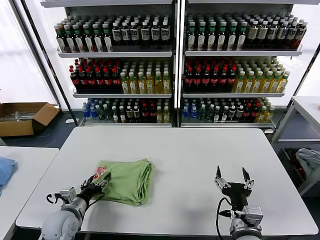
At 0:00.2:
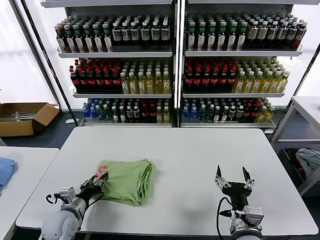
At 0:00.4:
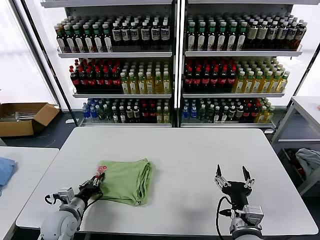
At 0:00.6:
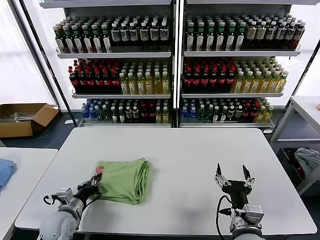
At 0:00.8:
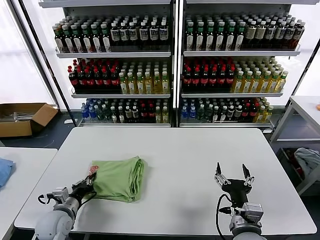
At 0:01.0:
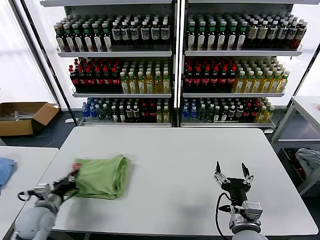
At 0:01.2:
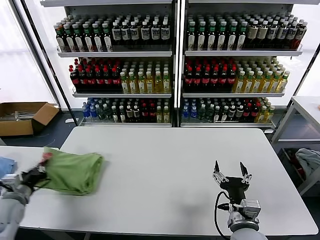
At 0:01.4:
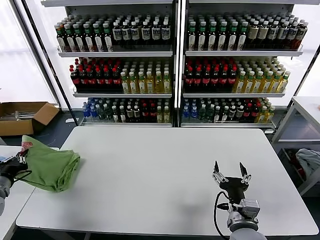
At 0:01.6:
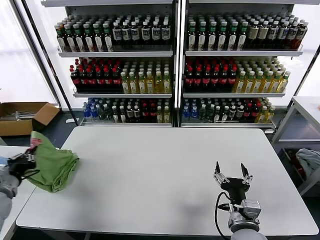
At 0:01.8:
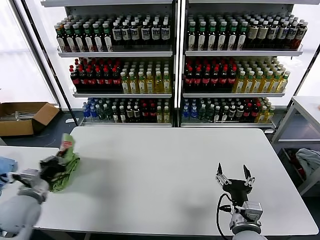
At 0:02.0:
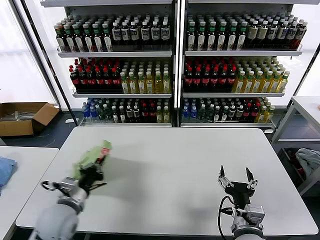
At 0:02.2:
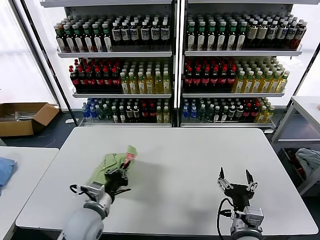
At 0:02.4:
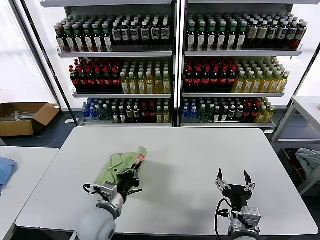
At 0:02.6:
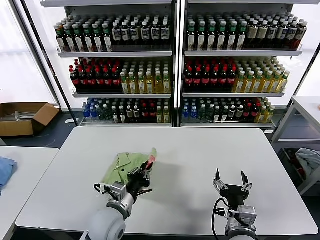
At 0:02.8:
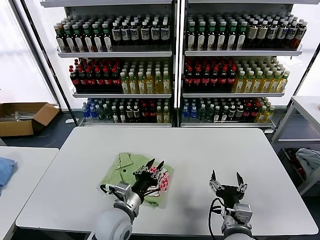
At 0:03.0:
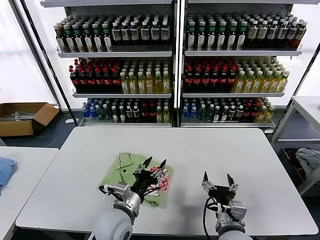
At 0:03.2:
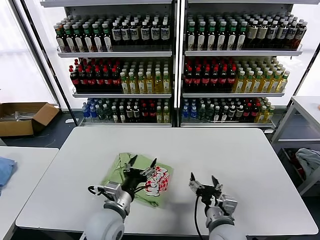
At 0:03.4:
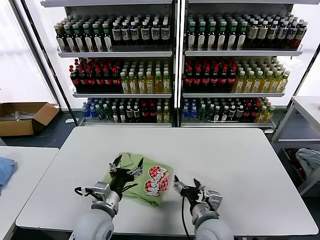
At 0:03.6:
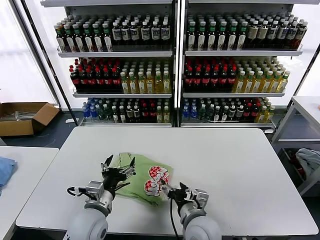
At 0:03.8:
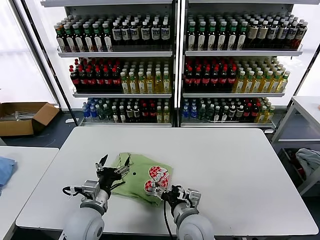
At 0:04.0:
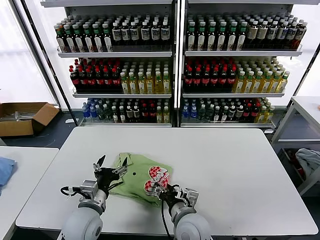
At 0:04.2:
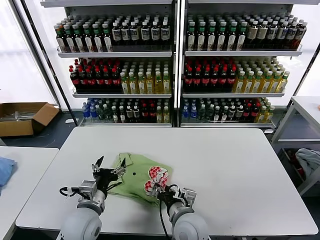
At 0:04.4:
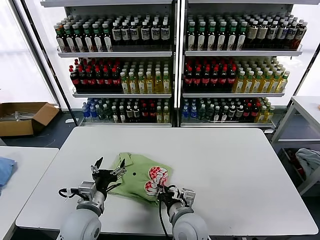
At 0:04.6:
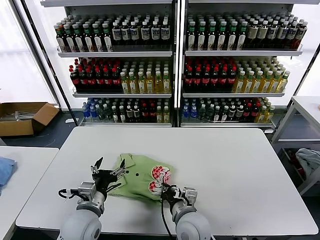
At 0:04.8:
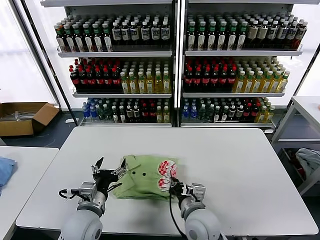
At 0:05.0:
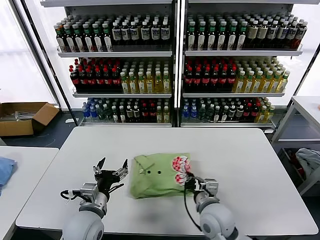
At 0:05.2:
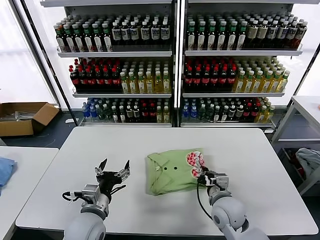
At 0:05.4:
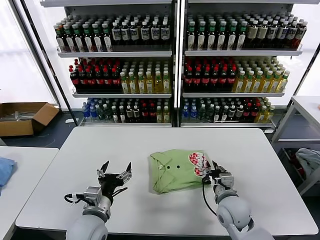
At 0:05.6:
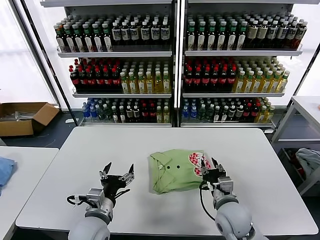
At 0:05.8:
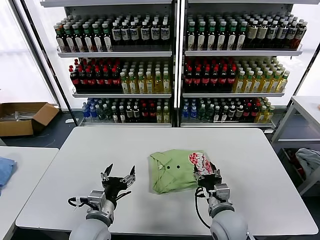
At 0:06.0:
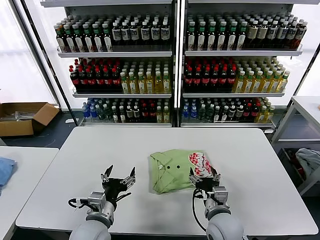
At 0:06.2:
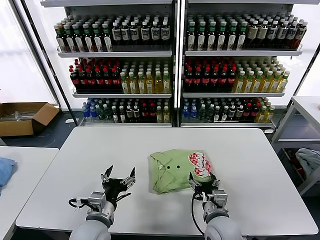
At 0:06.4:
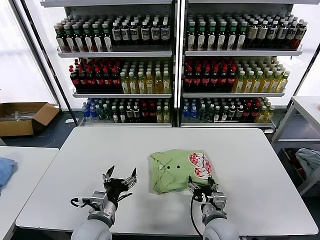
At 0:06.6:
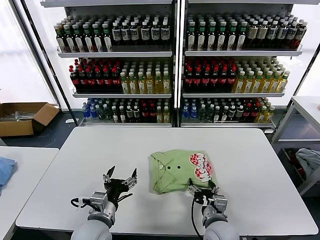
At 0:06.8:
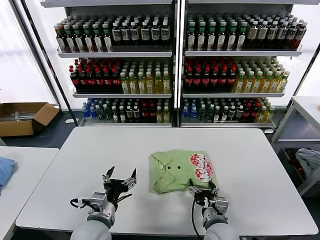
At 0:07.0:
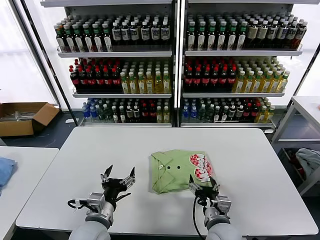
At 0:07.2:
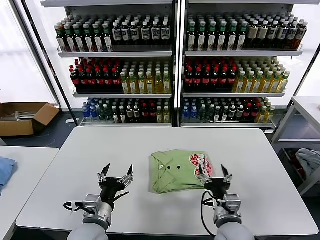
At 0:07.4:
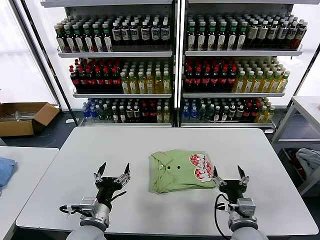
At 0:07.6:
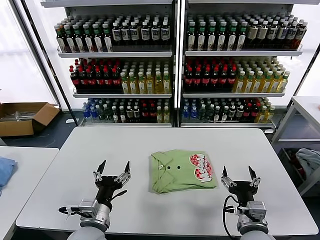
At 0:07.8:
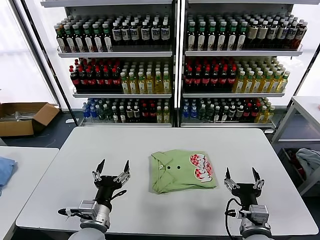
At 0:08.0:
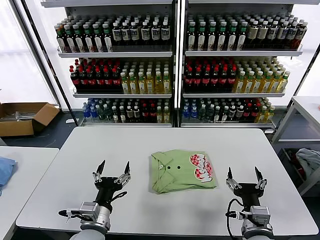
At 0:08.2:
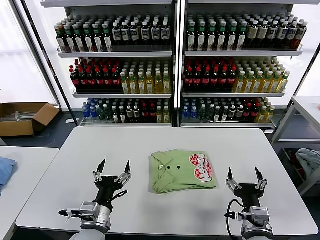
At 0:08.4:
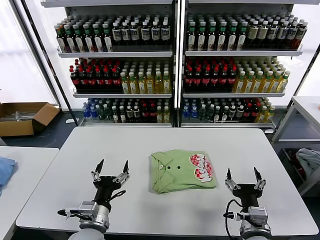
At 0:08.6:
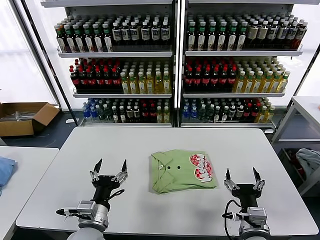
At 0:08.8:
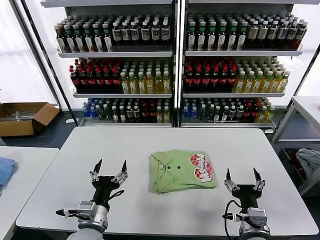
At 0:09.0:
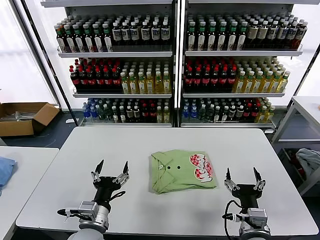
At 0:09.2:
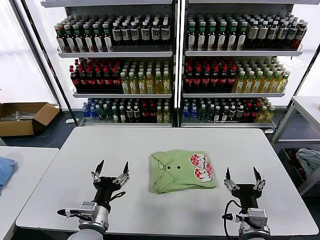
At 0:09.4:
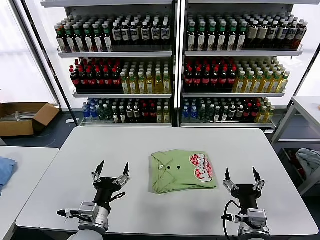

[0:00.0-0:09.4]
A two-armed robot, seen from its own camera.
Task of the whole recording: fold and organize the clothes.
Step, 0:00.0 to 0:02.8: Flip the folded clothes over with left gripper.
Step, 0:03.0 to 0:07.2: Drag the clothes to the center of the table.
0:00.0 to 0:01.6: The left gripper travels to the left and upward by some 20 cm, and closes.
0:01.6 to 0:03.2: The left gripper is displaced to the right by about 35 cm, and opens its fingers.
0:03.2 to 0:04.8: The two grippers go some 5 cm to the left. The right gripper closes its fingers.
0:04.8 to 0:06.2: The right gripper is displaced to the right by about 5 cm, and opens.
0:06.2 to 0:07.8: The right gripper goes some 10 cm to the right and backward.
0:07.8 to 0:09.4: Both grippers stay about where they are.

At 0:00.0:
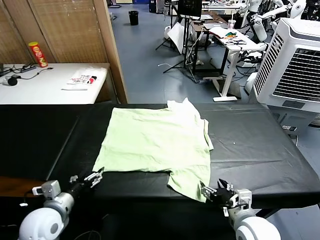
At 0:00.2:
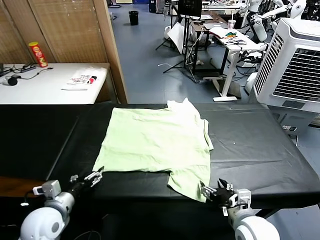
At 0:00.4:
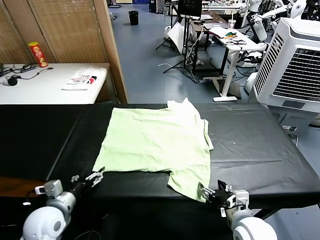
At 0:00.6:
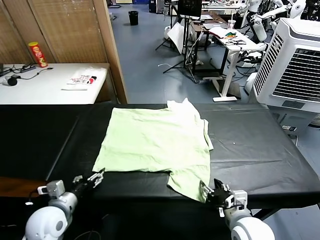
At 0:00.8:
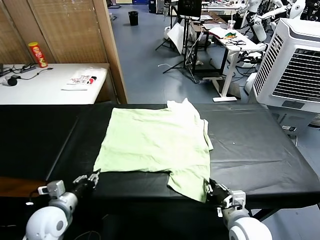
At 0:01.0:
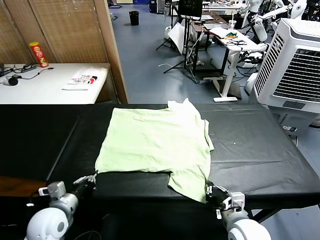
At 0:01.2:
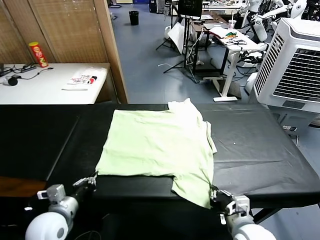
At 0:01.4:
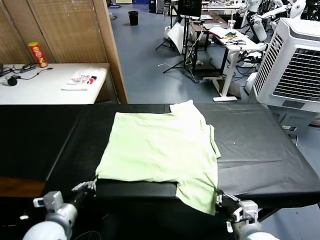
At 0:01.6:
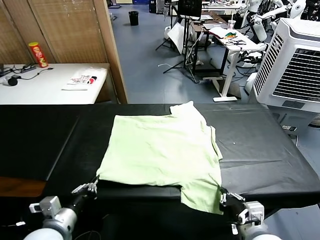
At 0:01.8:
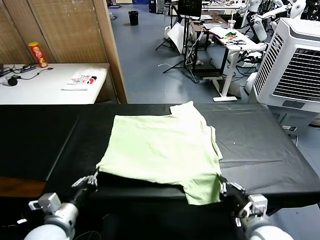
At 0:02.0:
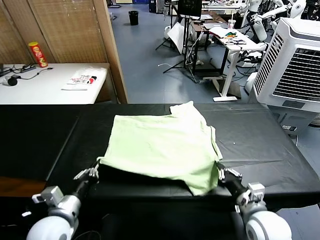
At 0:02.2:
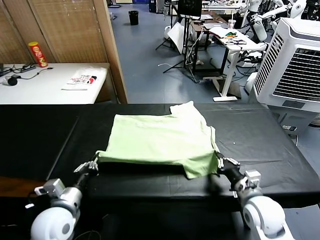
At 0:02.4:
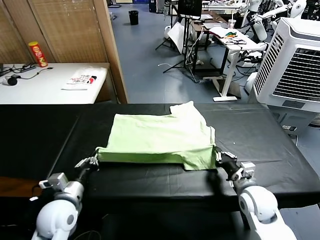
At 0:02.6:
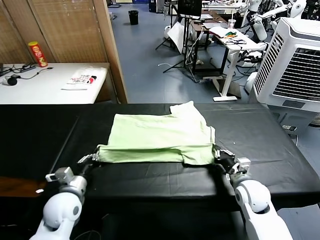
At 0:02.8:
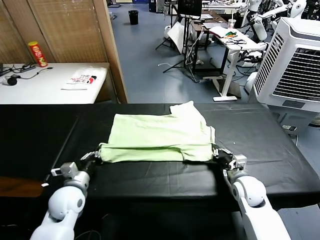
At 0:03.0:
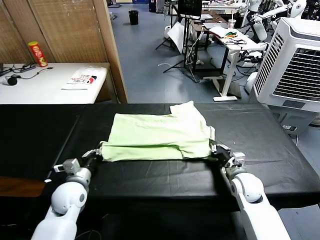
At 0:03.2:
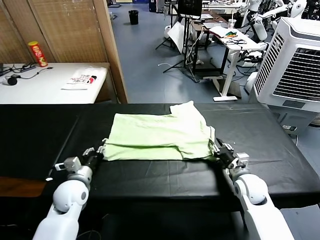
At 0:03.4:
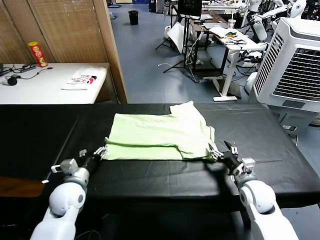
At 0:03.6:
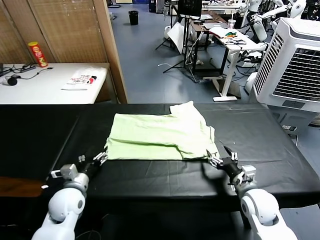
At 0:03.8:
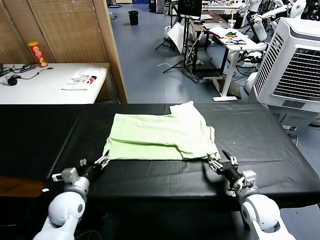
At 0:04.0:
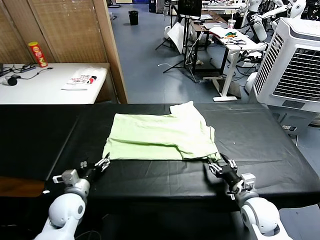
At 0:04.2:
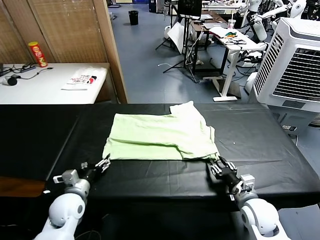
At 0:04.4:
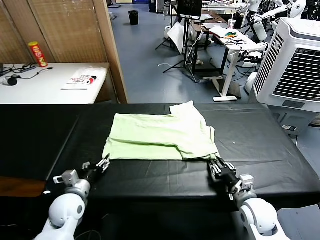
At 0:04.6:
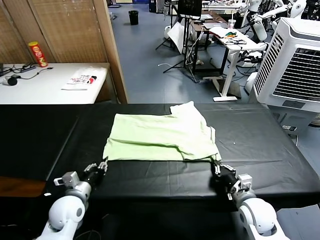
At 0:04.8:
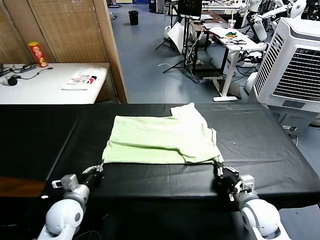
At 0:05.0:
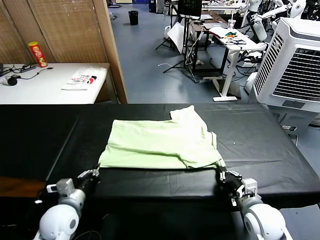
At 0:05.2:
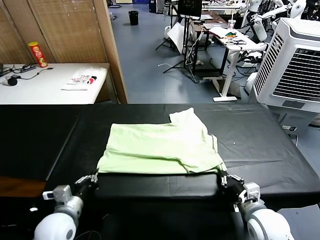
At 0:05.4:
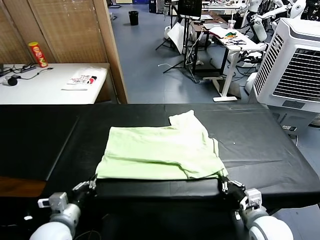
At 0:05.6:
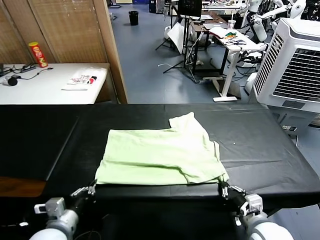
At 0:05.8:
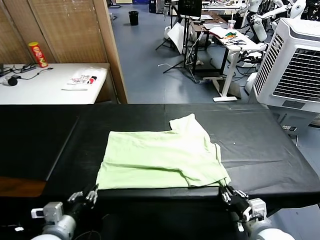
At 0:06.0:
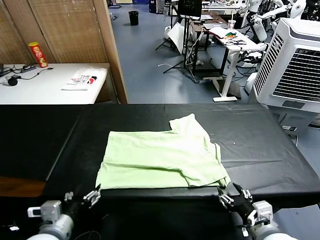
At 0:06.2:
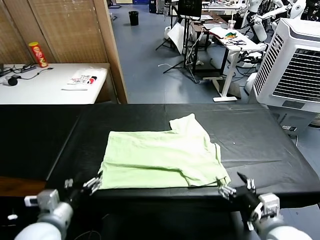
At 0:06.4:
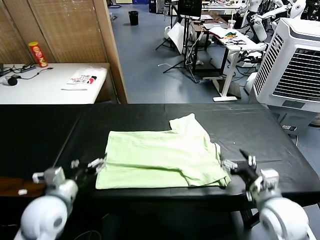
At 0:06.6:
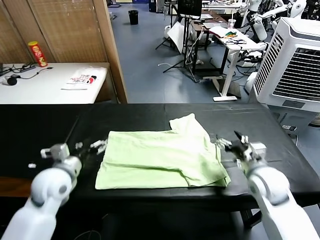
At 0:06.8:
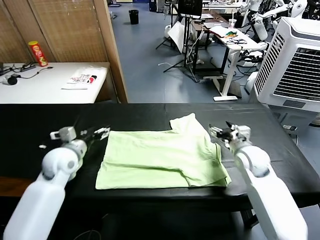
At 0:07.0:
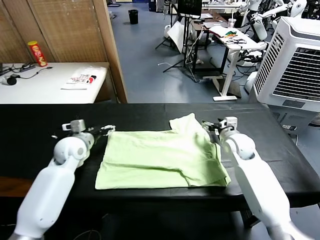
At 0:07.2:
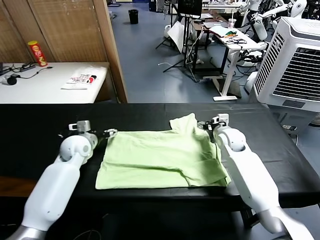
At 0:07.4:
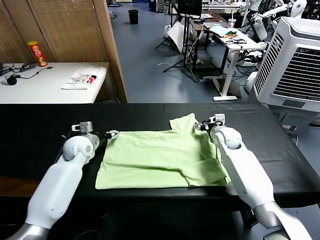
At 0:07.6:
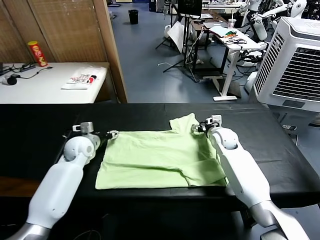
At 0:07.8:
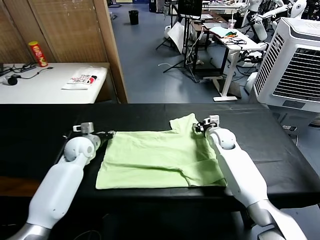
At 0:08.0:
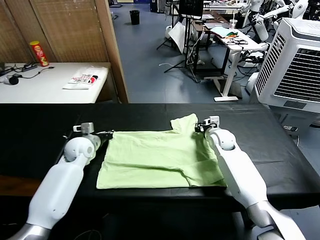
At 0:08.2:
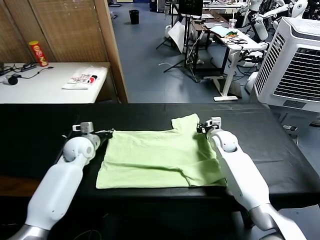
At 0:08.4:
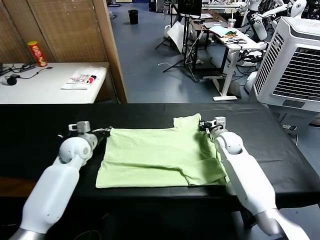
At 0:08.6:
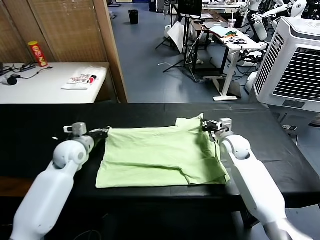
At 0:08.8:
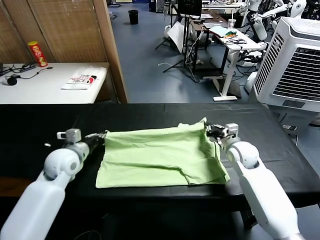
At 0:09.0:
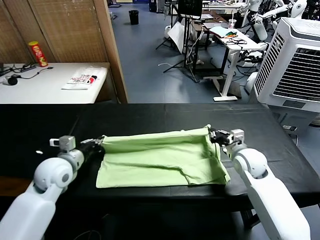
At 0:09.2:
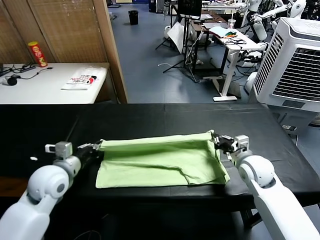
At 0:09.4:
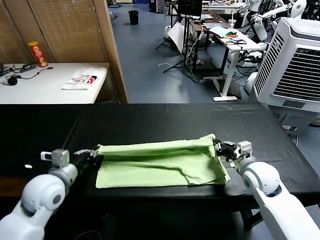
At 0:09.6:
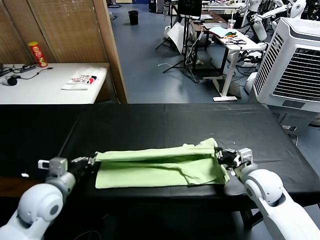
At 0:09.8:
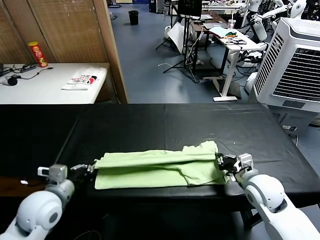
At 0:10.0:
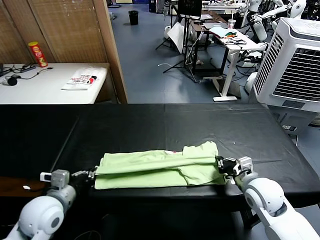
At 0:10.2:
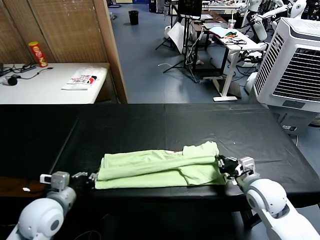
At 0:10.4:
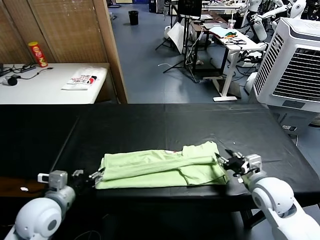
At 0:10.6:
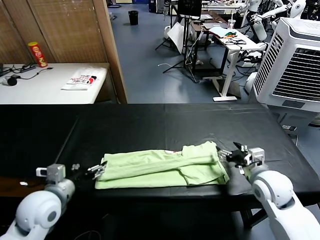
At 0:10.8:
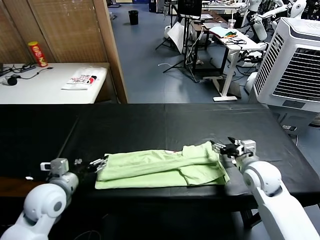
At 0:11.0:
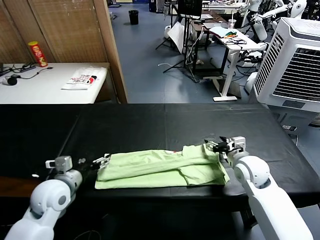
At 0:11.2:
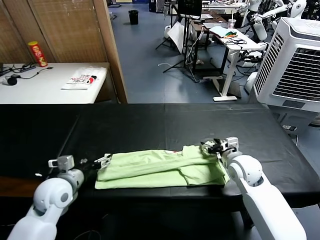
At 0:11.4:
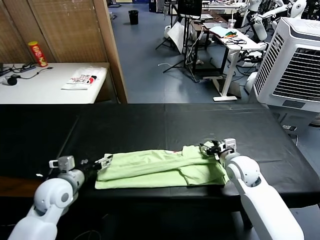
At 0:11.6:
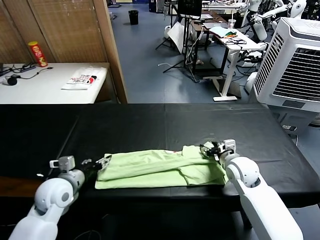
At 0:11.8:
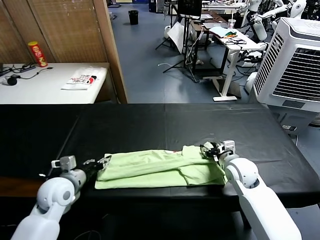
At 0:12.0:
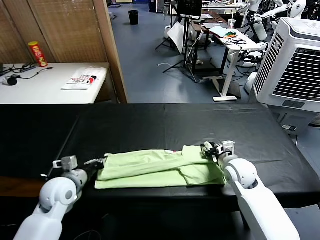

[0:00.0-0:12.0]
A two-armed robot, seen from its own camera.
Task of the whole recording: fold and organize the clothes.
Step, 0:00.0 to 0:01.0: use both grippers simultaneously to clamp the lower edge of the clothing fabric.
Step, 0:01.2 to 0:03.4: use both grippers to drag the lower edge of the fabric forward and fold it over the upper edge.
Step, 0:03.6 to 0:06.0: Drag the clothes downward with both gripper.
Step, 0:06.2 to 0:08.0: use both grippers simultaneously to clamp the upper edge of the clothing fabric.
Step, 0:08.2 to 0:10.2: use both grippers to drag the upper edge of the fabric backward and fold it over the lower edge.
0:01.6 to 0:03.0: Both grippers travel together forward and downward, some 20 cm. The right gripper opens.
0:03.0 to 0:04.4: The left gripper opens up; the right gripper goes some 10 cm backward, and opens and closes again.
0:04.4 to 0:06.0: The two grippers go approximately 15 cm backward and upward. The right gripper opens; the left gripper opens its fingers.
0:06.0 to 0:07.6: The two grippers go approximately 35 cm forward. The right gripper closes.
0:07.6 to 0:09.0: The right gripper shifts about 15 cm backward and to the right, and closes, while the left gripper goes roughly 15 cm backward and upward, and closes its fingers.
0:09.0 to 0:10.4: The two grippers go roughly 10 cm backward. The left gripper opens up. Meanwhile the right gripper opens up.
0:10.4 to 0:12.0: The right gripper is displaced forward, downward and to the left by about 10 cm, and closes up, while the left gripper goes roughly 10 cm forward and downward, and closes its fingers.
